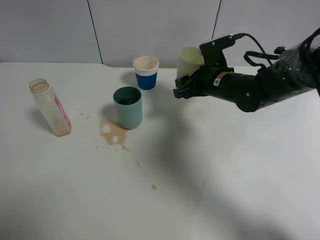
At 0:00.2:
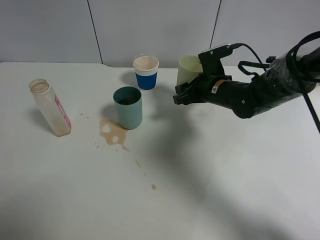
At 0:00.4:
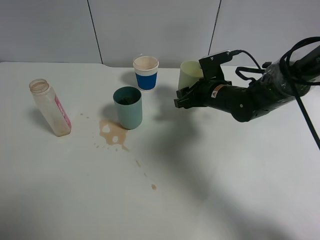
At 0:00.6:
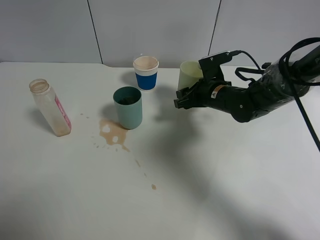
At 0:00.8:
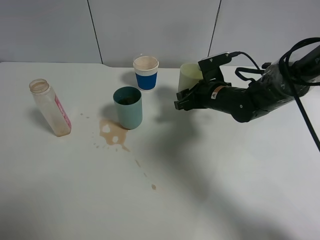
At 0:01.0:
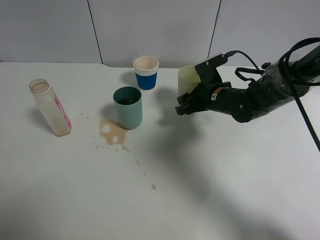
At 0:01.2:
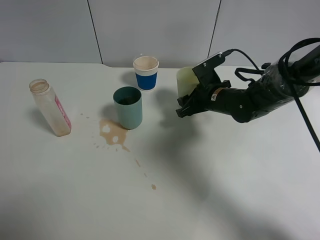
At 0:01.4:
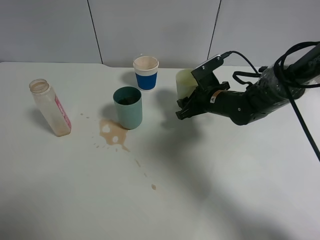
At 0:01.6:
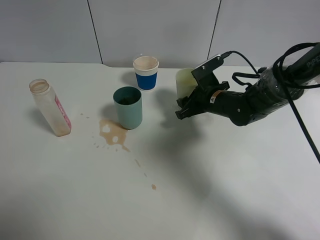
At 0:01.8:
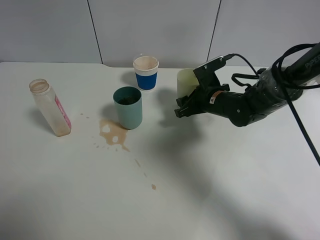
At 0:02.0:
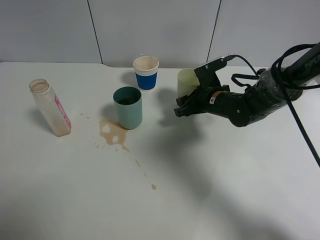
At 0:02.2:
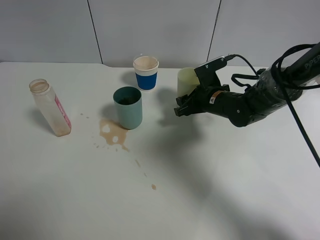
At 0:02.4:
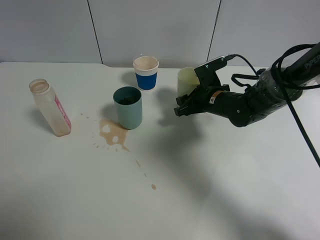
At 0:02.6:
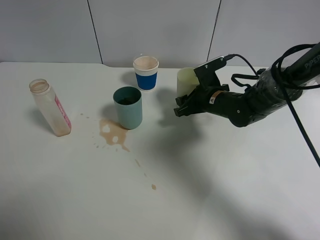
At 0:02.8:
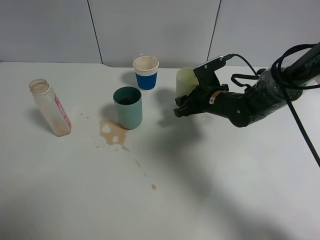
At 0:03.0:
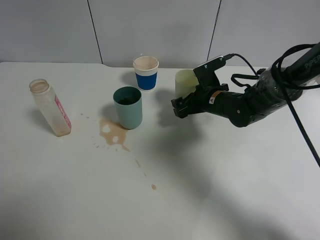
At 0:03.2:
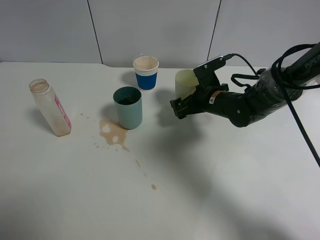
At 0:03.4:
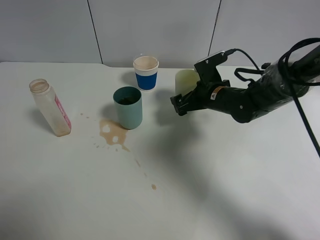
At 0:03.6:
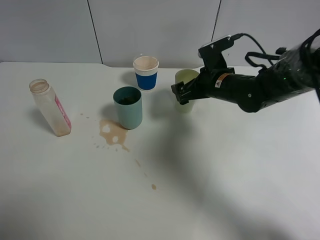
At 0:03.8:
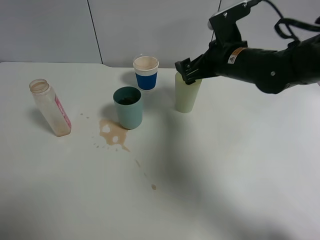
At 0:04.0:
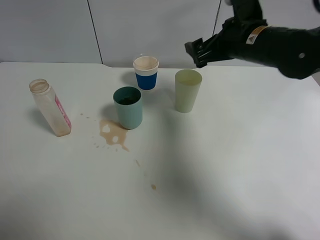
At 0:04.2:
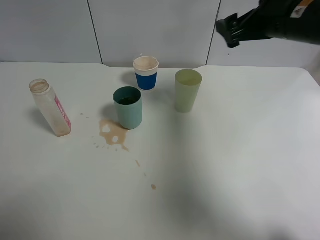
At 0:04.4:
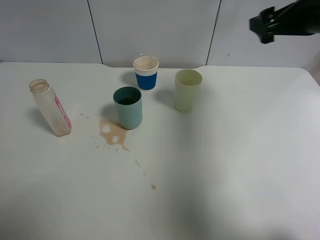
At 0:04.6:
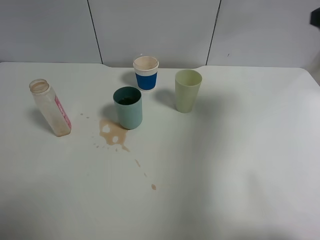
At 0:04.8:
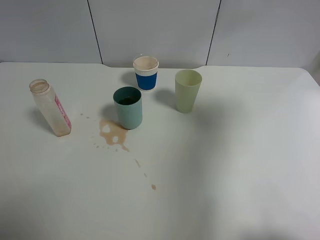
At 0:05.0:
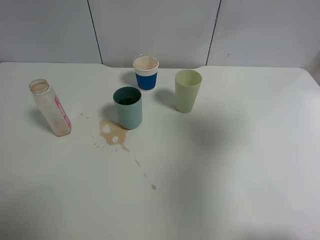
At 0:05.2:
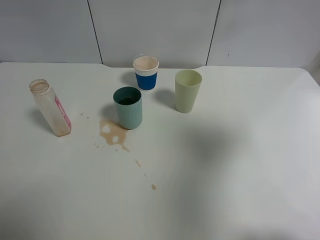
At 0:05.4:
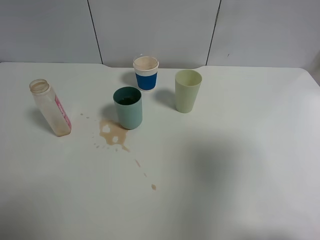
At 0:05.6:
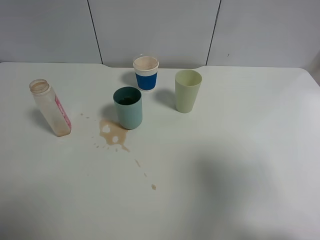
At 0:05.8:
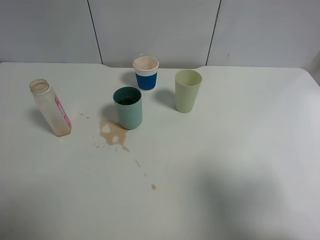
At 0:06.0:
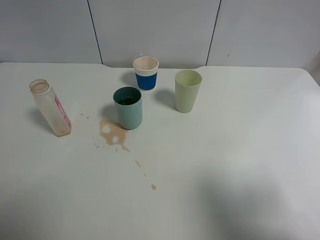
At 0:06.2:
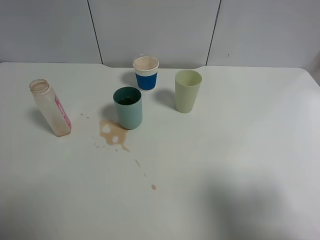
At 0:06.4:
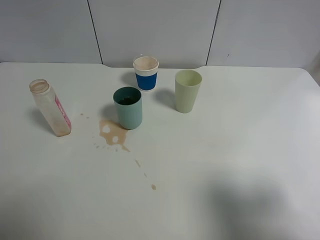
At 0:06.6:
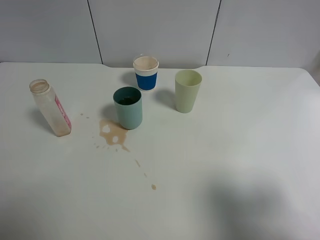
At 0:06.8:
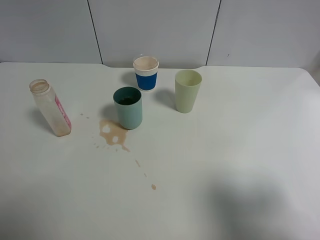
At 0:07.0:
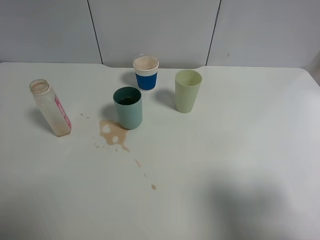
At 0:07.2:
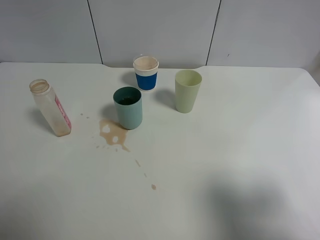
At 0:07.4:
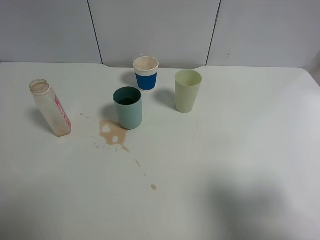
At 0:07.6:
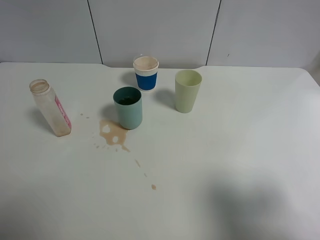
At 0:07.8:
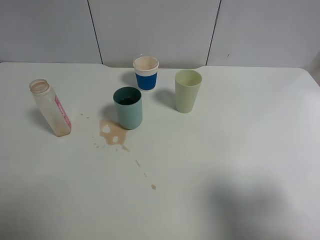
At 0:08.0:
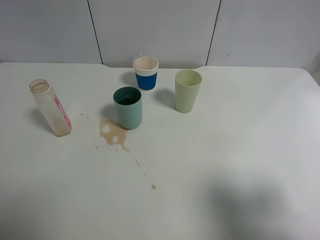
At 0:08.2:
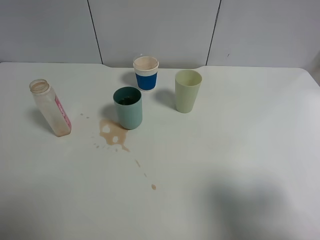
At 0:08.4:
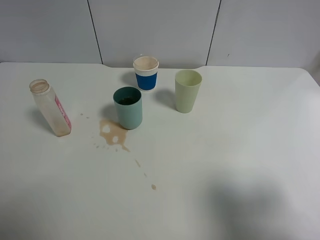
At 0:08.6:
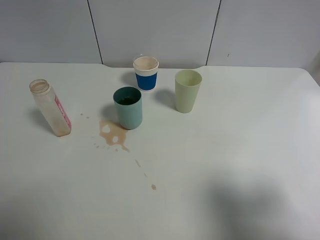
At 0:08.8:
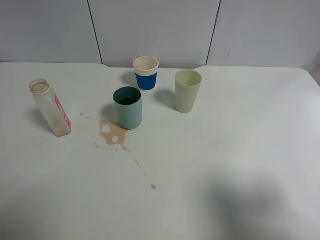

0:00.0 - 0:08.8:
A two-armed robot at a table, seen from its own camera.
Task of the whole recording: use a clamp to hold the bottle of the drink, pour the beverage into a random cup, then clamp the cup containing the drink and pour the drink into another random cup.
Step, 0:00.0 - 0:03.0: Place the green plastic cup on the table with right gripper.
0:00.0 - 0:01.4: The grippers move only a little.
0:01.4 - 0:03.0: The right gripper opens up.
0:03.0 - 0:04.4: The right gripper is displaced upward and to the right by roughly 25 cm.
0:04.4 - 0:05.8: The right gripper heads backward, covering roughly 30 cm.
0:07.4 - 0:08.8: Neither gripper changes place.
